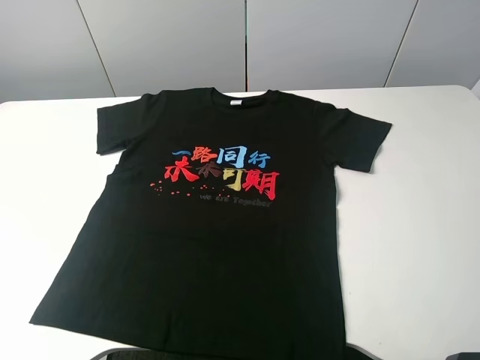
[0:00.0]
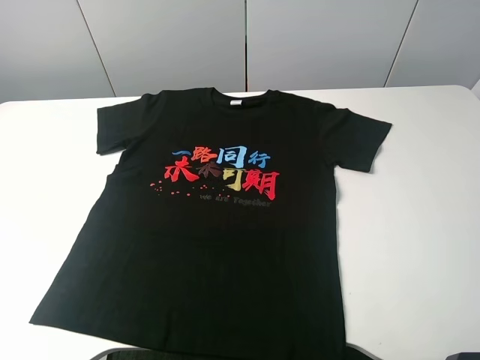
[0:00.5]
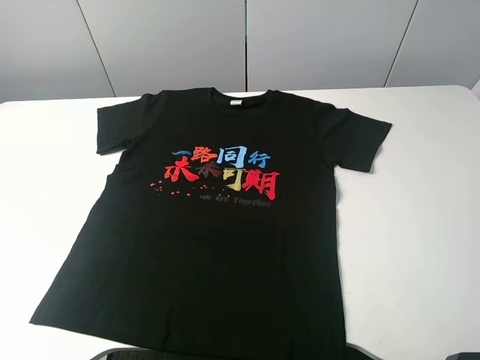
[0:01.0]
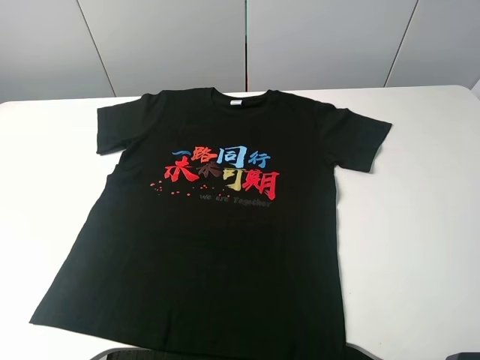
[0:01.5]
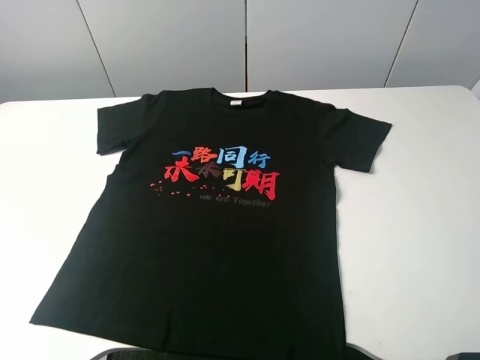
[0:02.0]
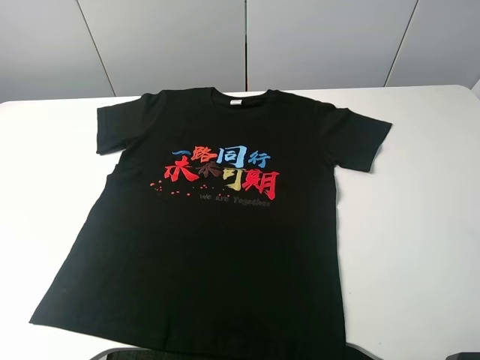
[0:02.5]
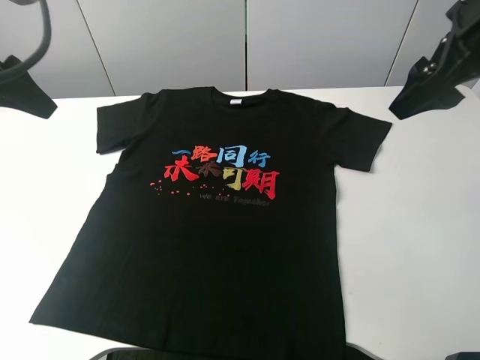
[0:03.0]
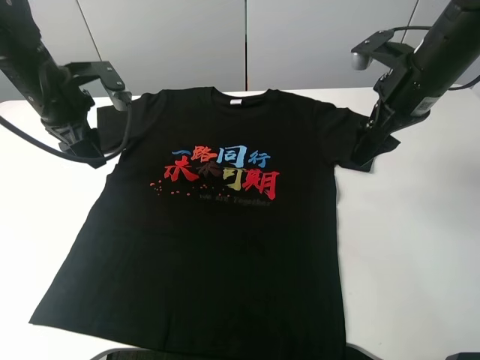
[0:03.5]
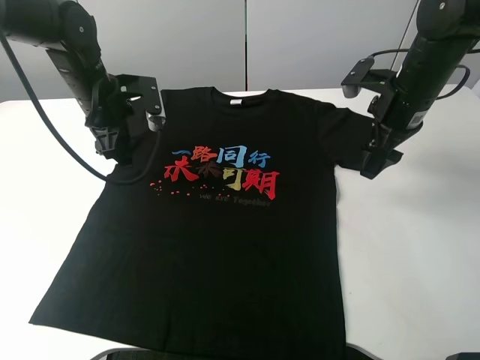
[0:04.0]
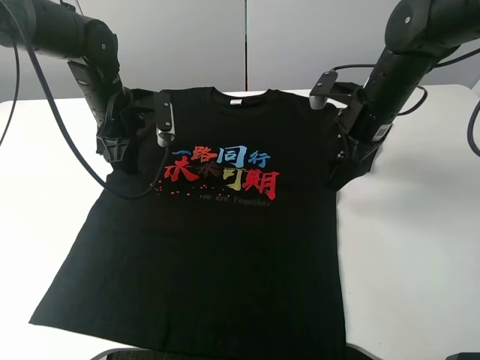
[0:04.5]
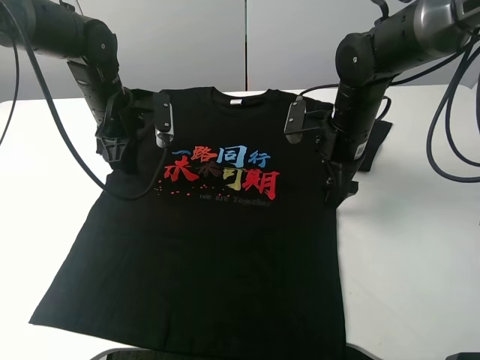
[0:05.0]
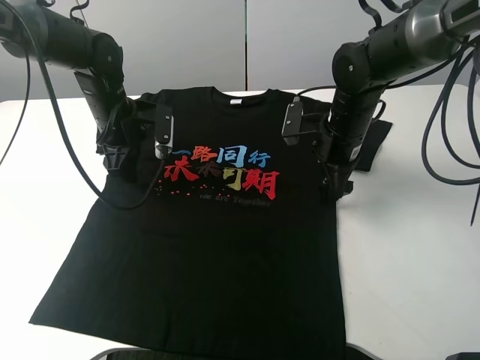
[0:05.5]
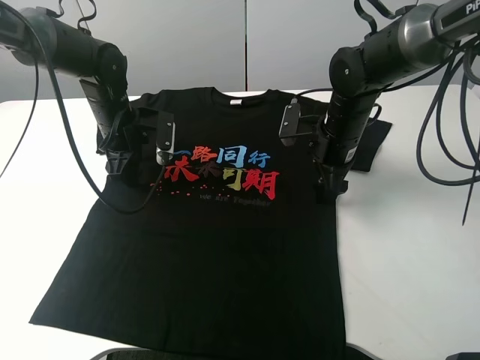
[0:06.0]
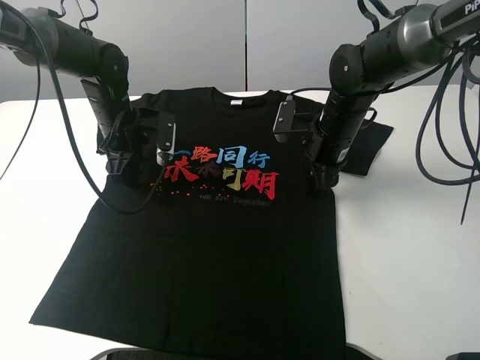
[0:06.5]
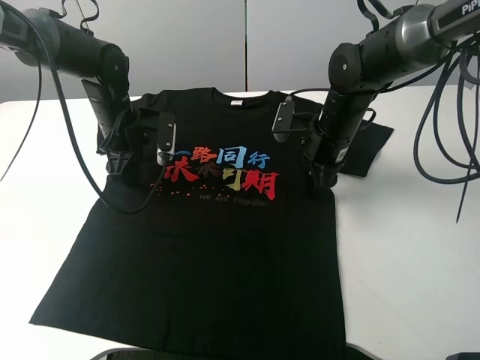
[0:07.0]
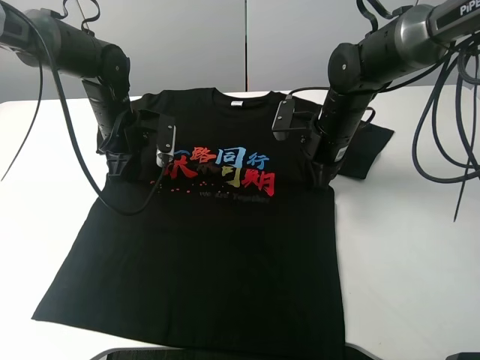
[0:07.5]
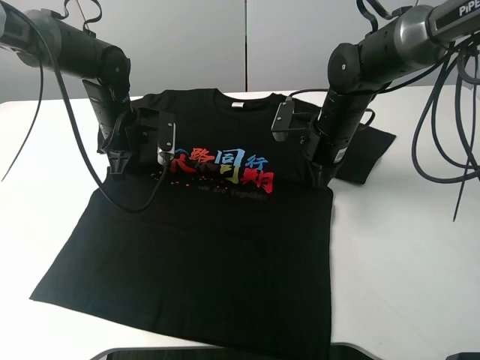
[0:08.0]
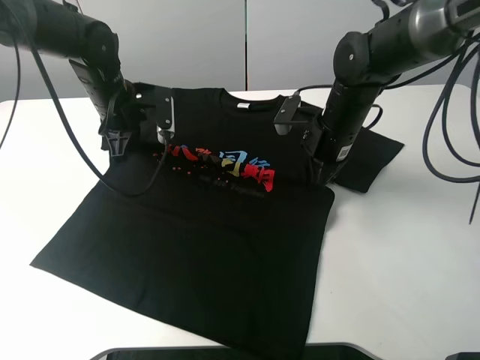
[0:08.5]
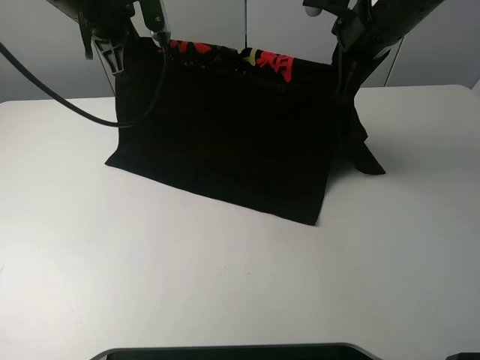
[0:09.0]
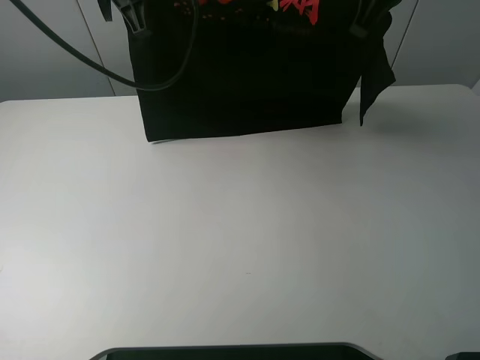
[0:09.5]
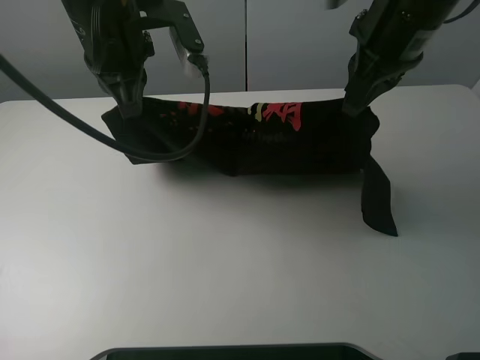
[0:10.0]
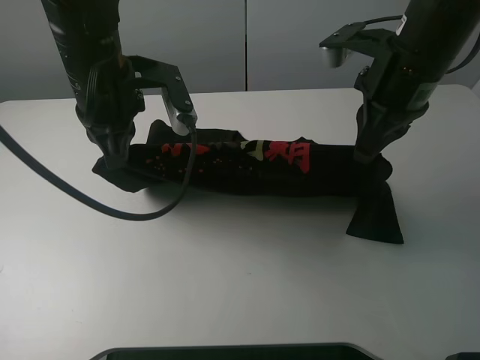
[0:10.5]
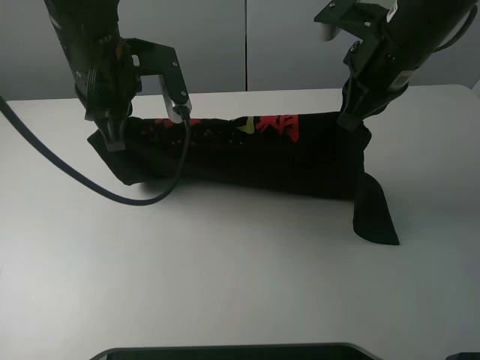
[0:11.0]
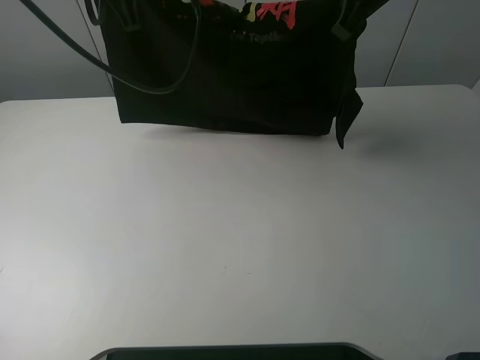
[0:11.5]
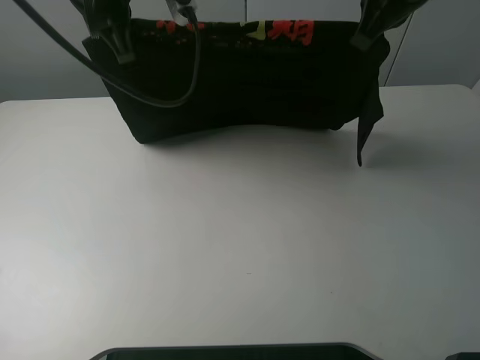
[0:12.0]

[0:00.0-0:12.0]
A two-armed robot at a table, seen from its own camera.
Task of the whole recording: fold the clothes on the table.
Step, 0:00.0 to 0:07.5: Lift the black T-shirt with the left gripper.
0:02.0 to 0:04.0: The left gripper moves forward, approximately 40 cm; the right gripper is displaced forward and downward by roughly 40 cm.
0:04.0 to 0:06.0: The right gripper goes approximately 10 cm to the left and downward.
0:06.0 to 0:08.0: The left gripper closes up; the right gripper closes.
0:08.0 to 0:10.0: The right gripper heads upward, covering about 20 cm, while the left gripper heads upward and backward, covering approximately 20 cm.
0:10.0 to 0:12.0: The right gripper ends up roughly 5 cm from where it was.

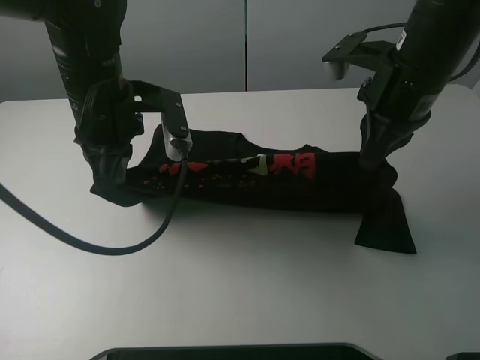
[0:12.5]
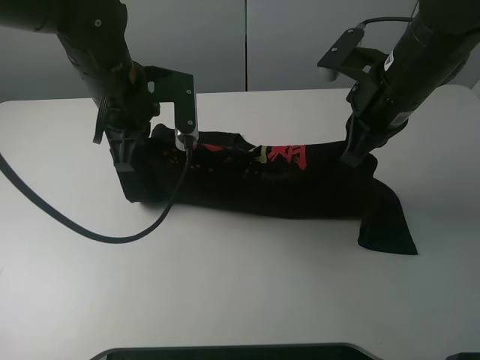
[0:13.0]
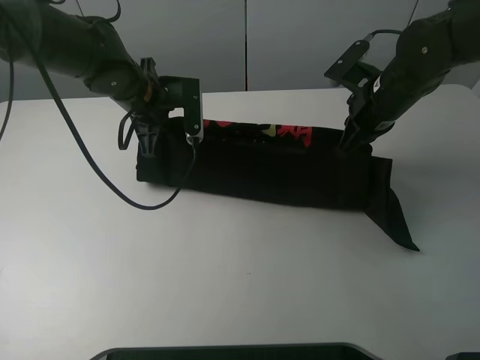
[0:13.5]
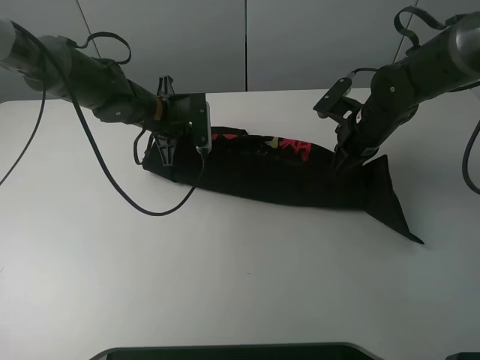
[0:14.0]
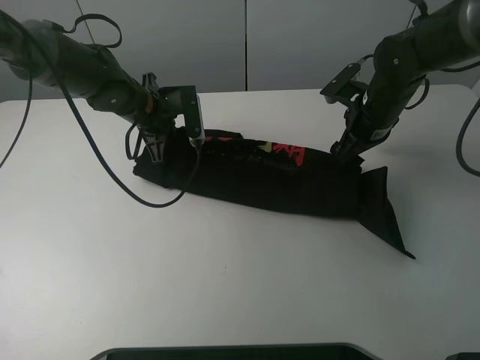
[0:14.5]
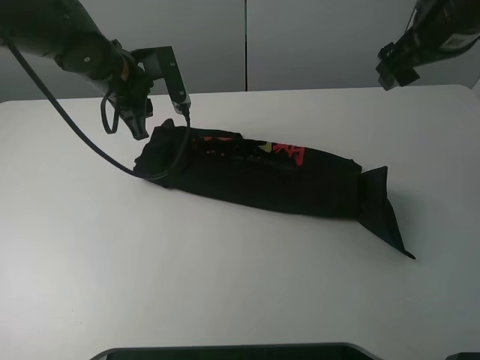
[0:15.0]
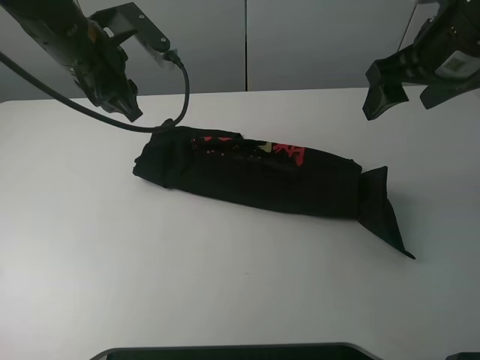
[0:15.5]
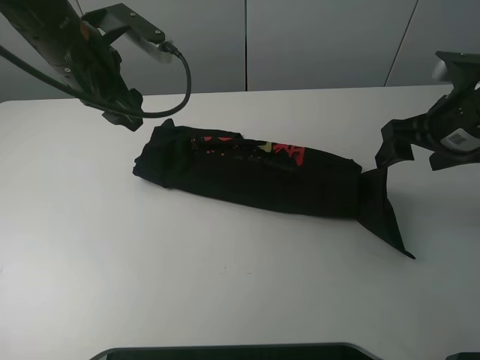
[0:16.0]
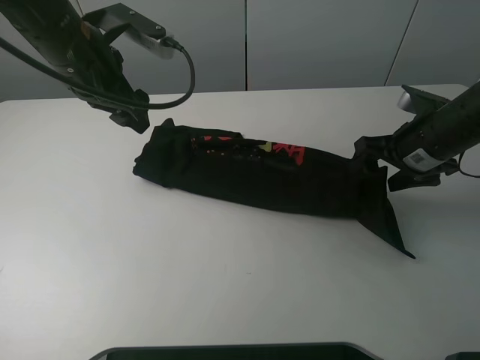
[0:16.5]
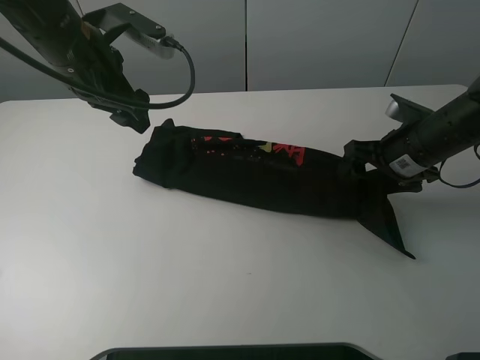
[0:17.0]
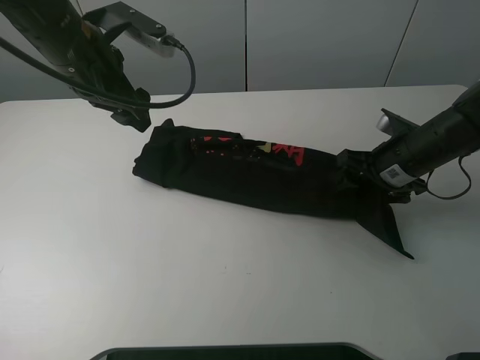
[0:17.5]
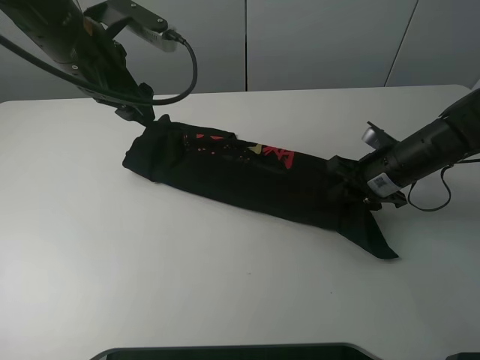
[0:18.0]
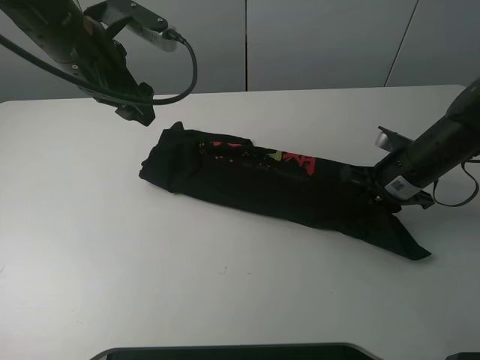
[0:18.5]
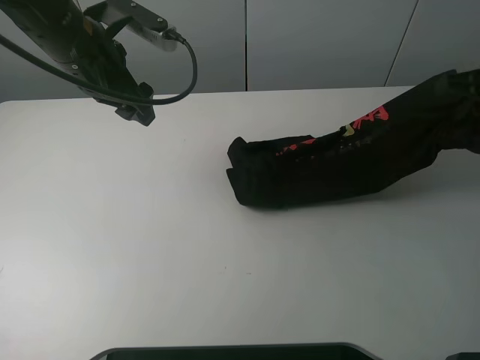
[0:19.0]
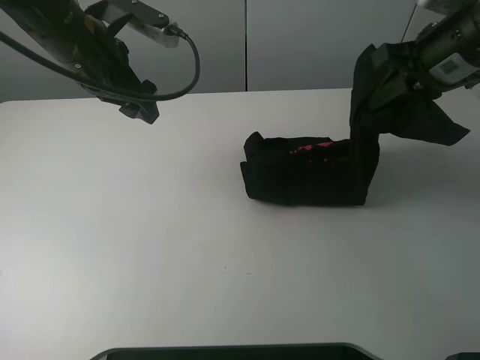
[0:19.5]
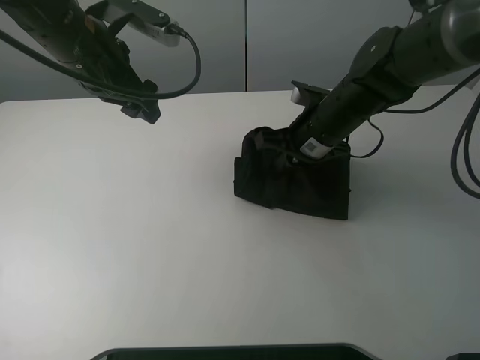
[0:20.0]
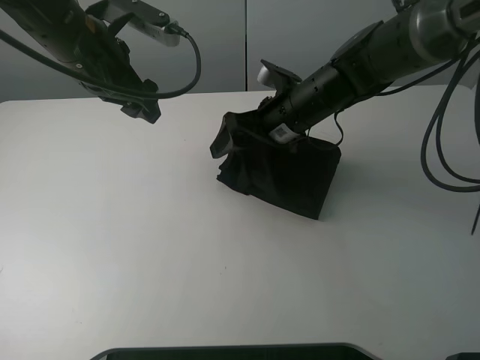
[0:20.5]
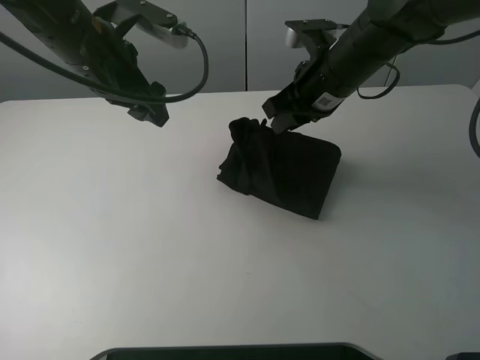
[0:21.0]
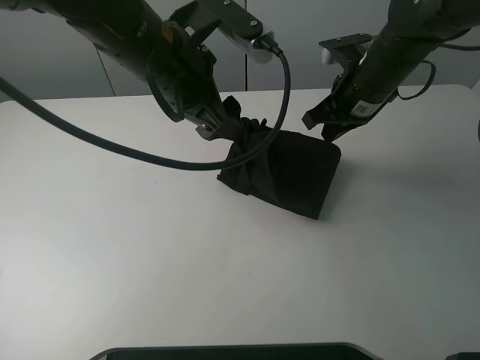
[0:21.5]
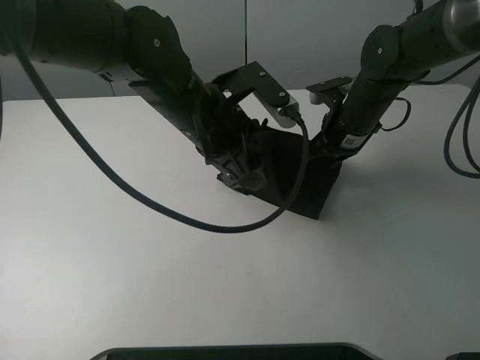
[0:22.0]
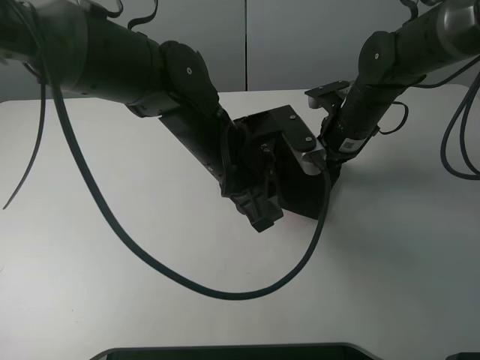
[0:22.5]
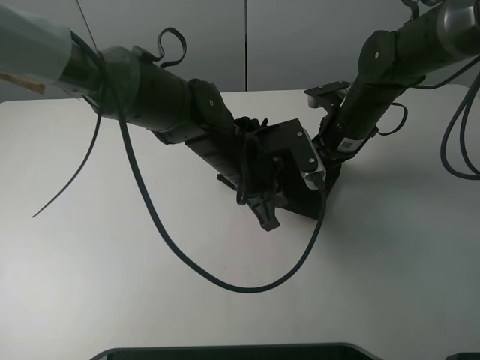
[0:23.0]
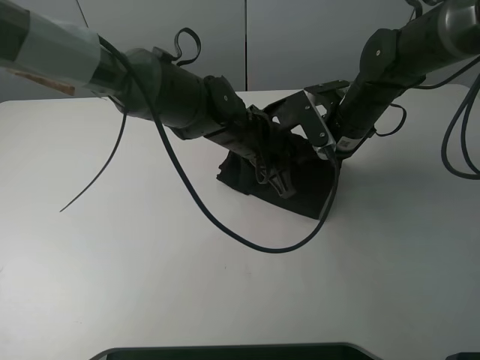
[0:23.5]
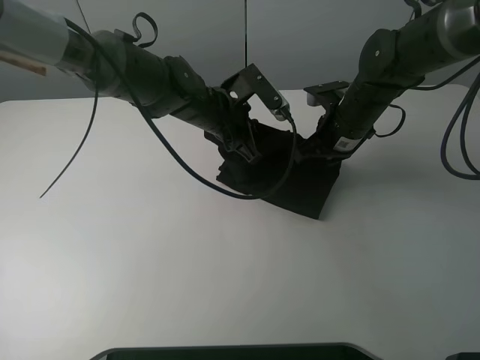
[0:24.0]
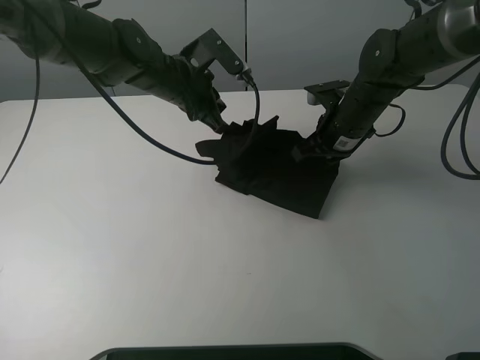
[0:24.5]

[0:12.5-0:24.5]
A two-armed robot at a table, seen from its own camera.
Task of the whole recording: fold the clothes on the table.
Step, 0:12.5 to 0:14.5: Fold the black T-shirt downward with the left gripper.
Step, 0:15.0 to 0:18.0: Grasp the black T-shirt with the right gripper.
0:12.5 to 0:14.5: The left gripper moves forward and downward, approximately 15 cm, and opens its fingers. Meanwhile the right gripper moves downward and forward, about 15 cm, and opens.
0:14.5 to 0:16.5: The right gripper goes approximately 10 cm backward, and moves approximately 15 cm upward and comes back. Meanwhile the left gripper moves upward and backward, some 15 cm, and opens its fingers.
0:16.5 to 0:18.5: The right gripper travels downward by roughly 5 cm, and closes.
0:18.5 to 0:20.5: The right gripper goes about 20 cm to the left, and opens its fingers.
0:20.5 to 0:22.5: The left gripper shifts approximately 20 cm to the right, downward and backward, and closes; the right gripper travels to the right by roughly 10 cm, and closes its fingers.
0:22.5 to 0:24.5: The left gripper travels forward and to the left by approximately 15 cm, and closes up.

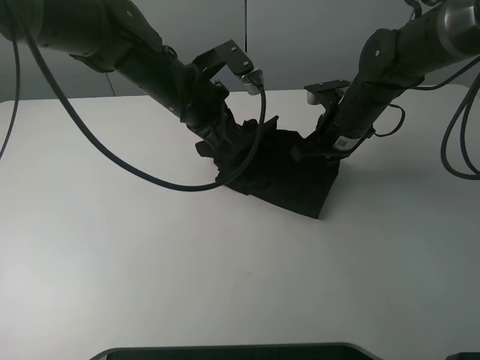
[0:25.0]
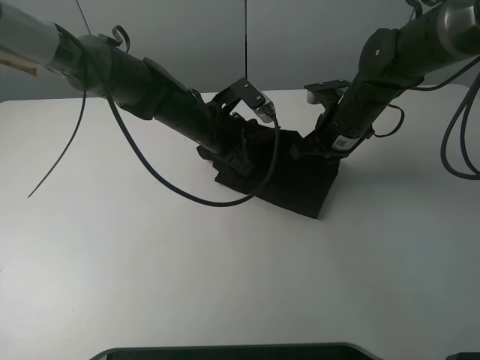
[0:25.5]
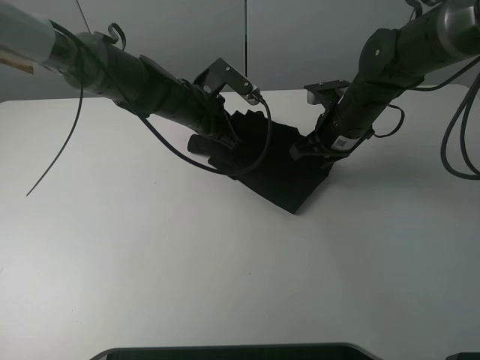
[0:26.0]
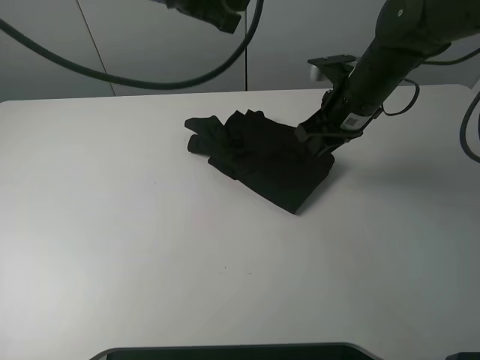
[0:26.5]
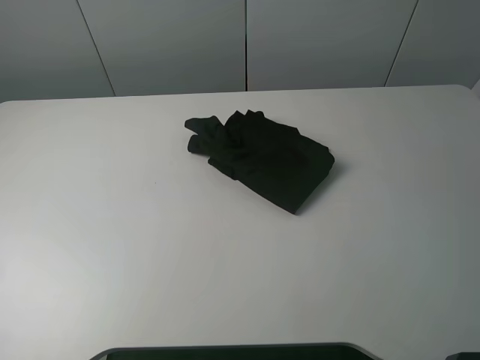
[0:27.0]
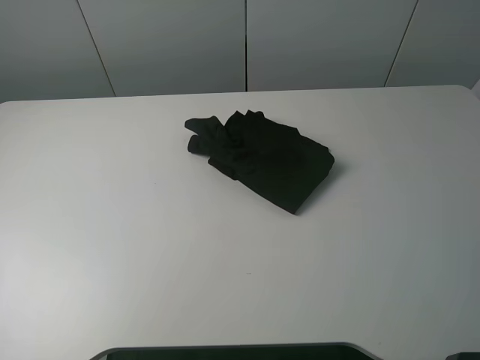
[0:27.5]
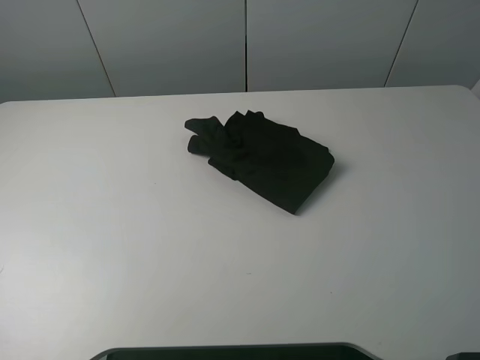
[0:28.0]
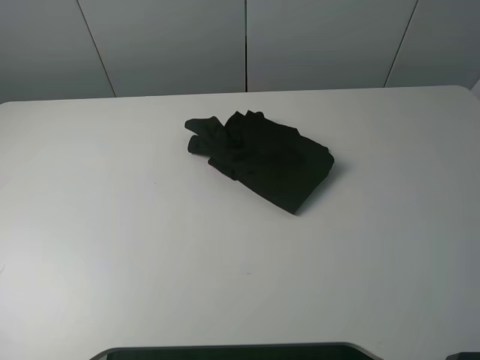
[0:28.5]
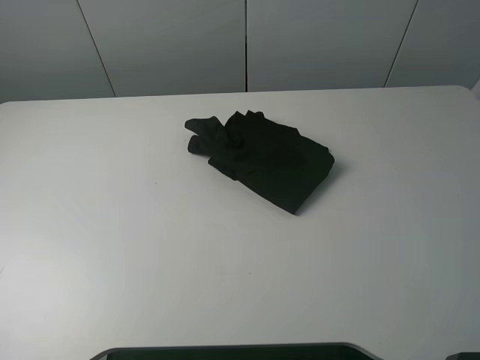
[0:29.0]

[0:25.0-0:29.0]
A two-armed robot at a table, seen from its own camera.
Task of the whole recording: fold the clothes on the table.
0:25.0 to 0:27.0: Both grippers move upward, roughly 30 cm. The left gripper opens up. The right gripper opens up.
